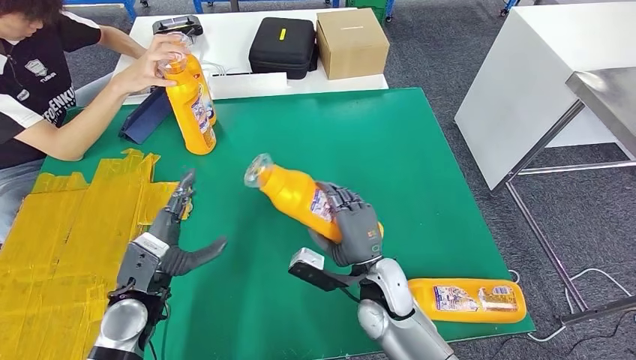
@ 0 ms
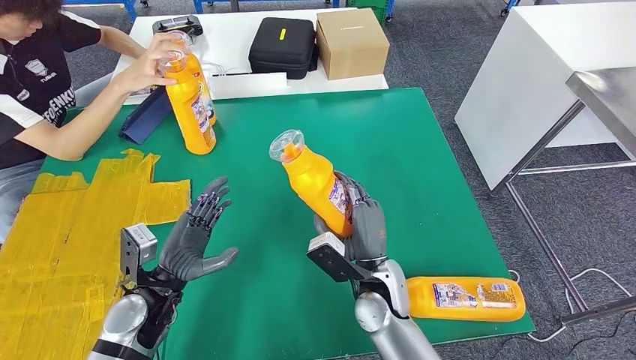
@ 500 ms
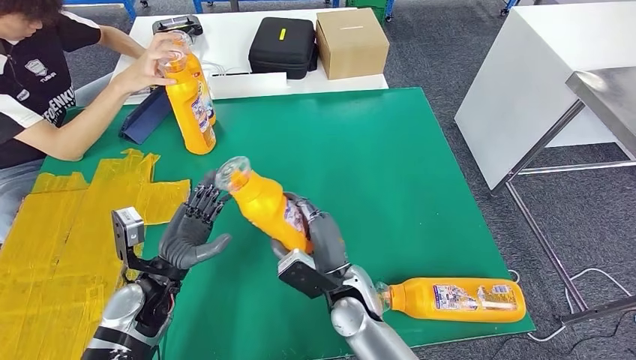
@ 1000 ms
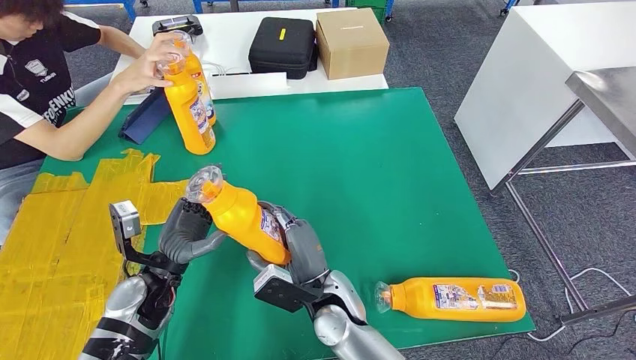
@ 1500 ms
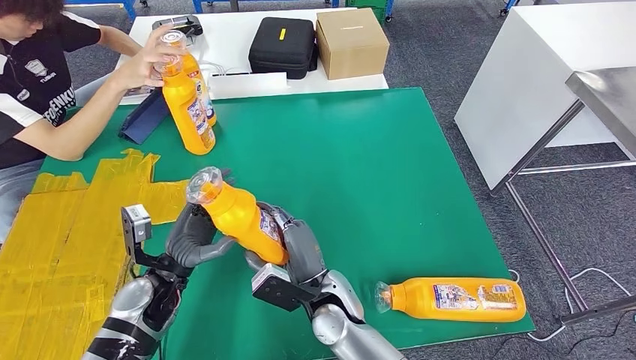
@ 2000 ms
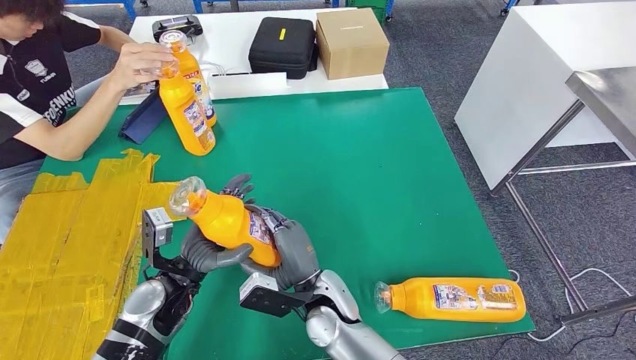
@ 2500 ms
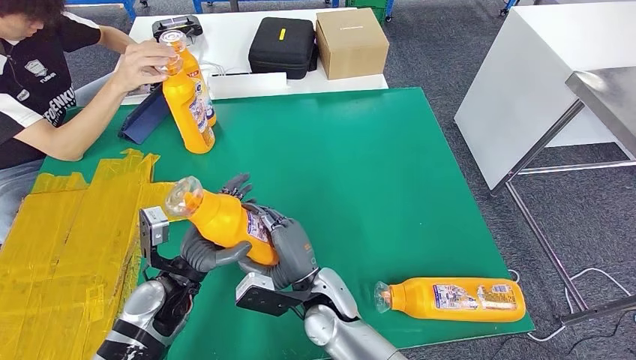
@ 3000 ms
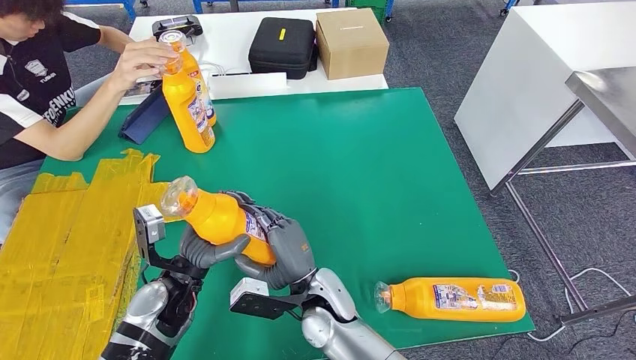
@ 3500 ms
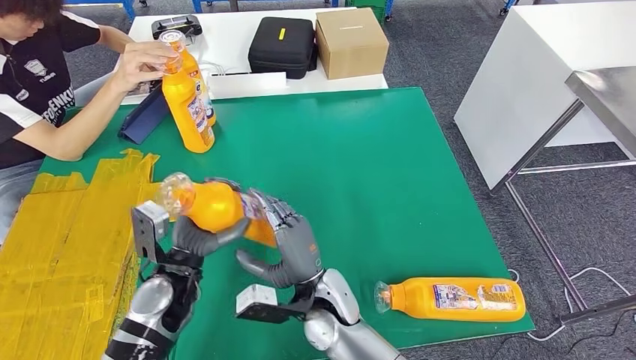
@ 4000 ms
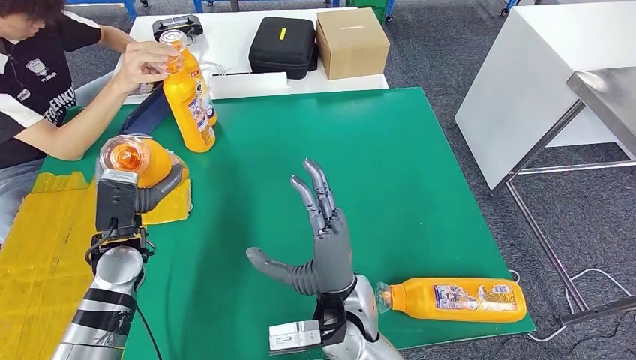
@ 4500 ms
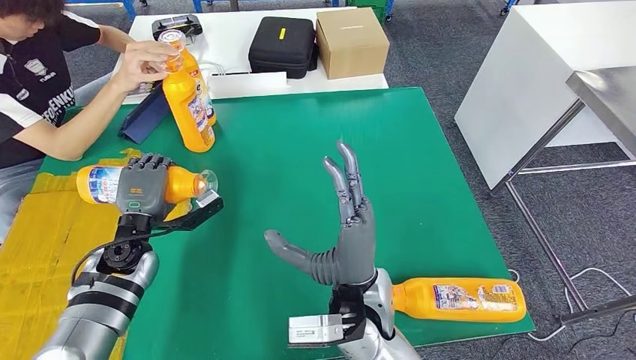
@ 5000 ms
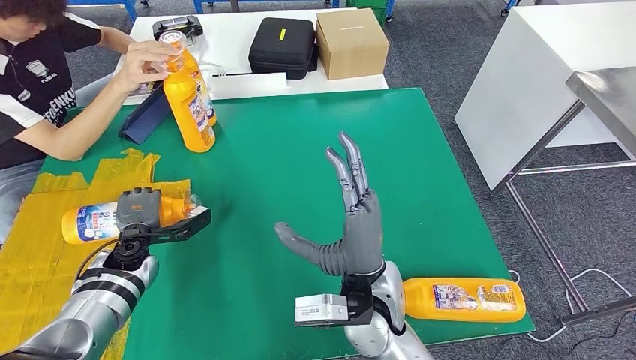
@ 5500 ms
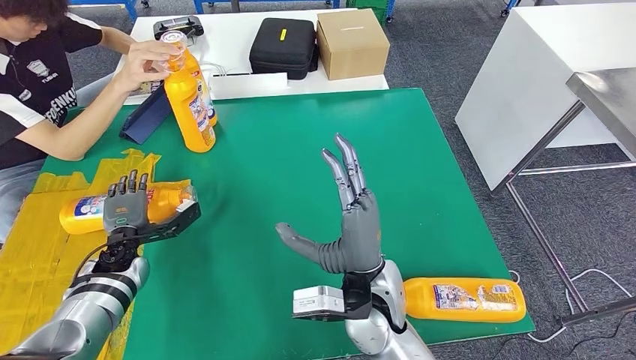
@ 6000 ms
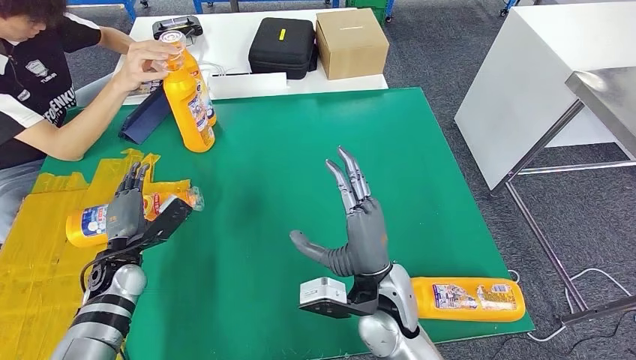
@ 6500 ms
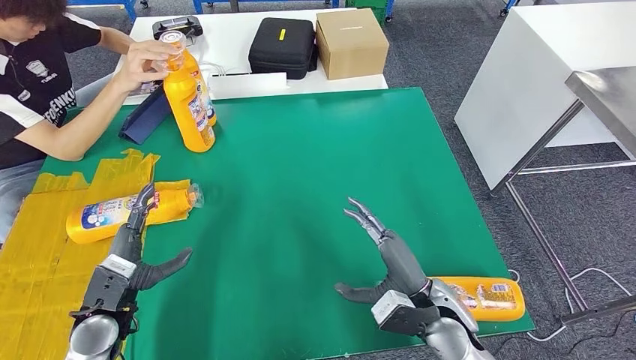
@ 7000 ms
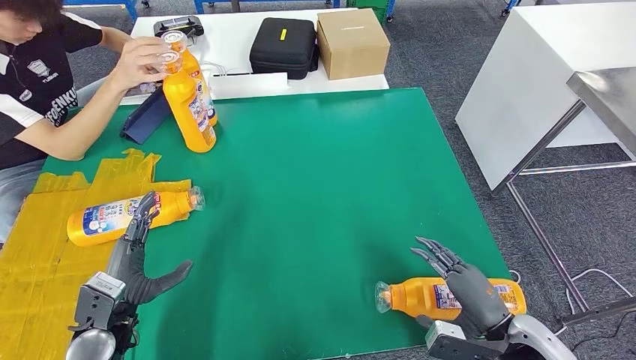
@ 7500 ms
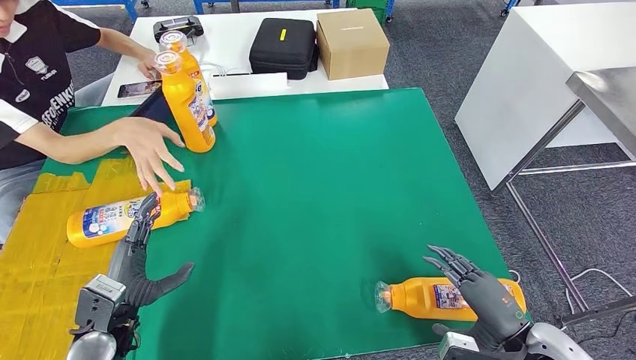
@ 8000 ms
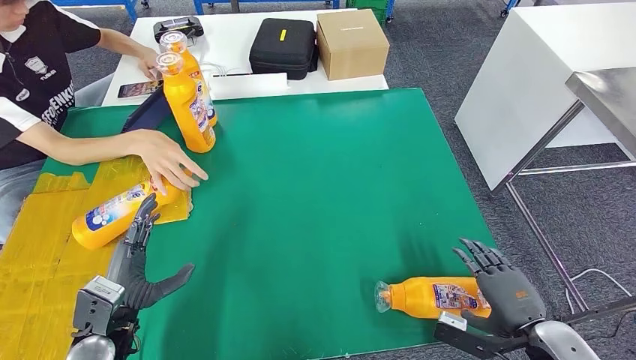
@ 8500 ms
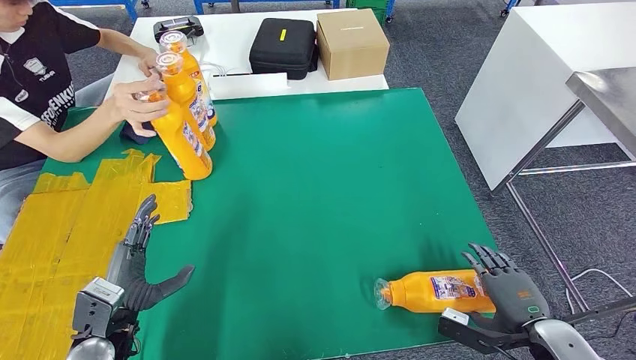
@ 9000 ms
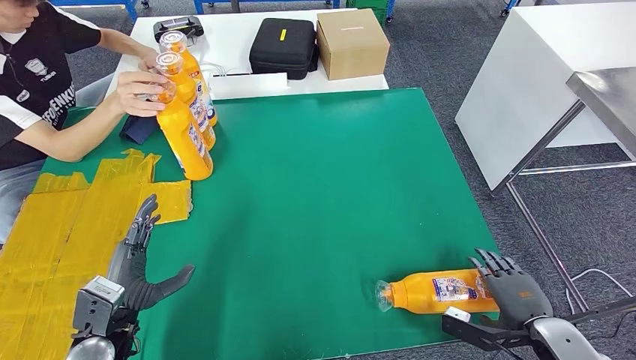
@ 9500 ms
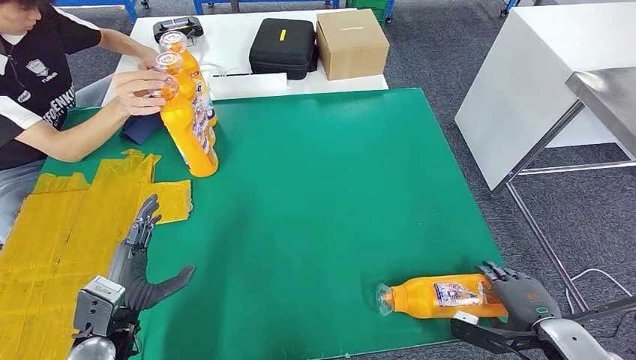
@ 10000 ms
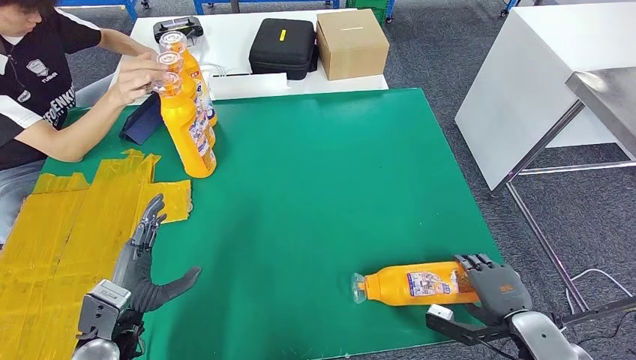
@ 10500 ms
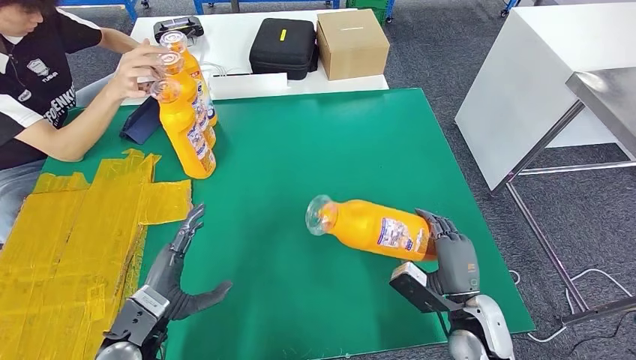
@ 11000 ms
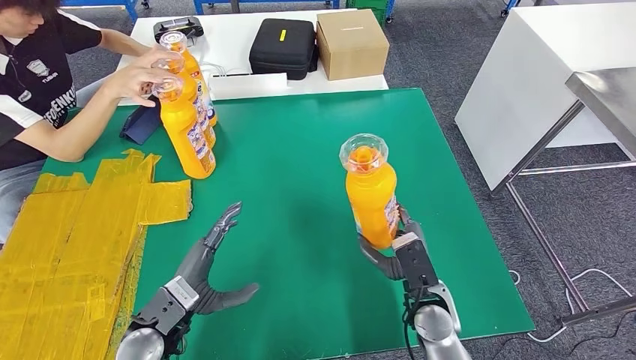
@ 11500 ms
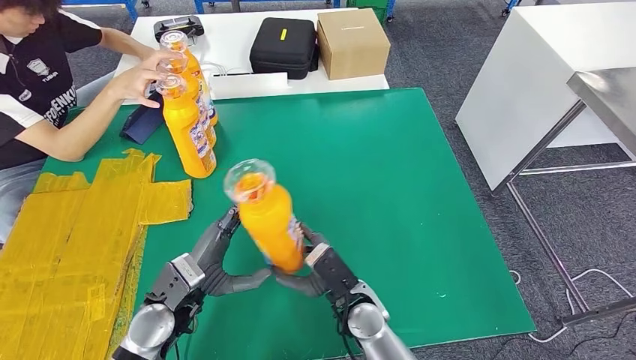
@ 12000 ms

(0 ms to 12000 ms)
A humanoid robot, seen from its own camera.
Step, 500 ms - 6500 ms: Flip the fast-moving consumer goods bottle to the front side.
0 ms - 2000 ms: The right hand is displaced to the left by roughly 10 cm.
2000 ms - 4000 ms: The hands move only a little.
8000 ms - 10000 ms: The right hand goes roughly 5 cm to the right.
10000 ms - 12000 ms: The left hand travels to the right by approximately 10 cm; the right hand shifts about 30 cm to the left.

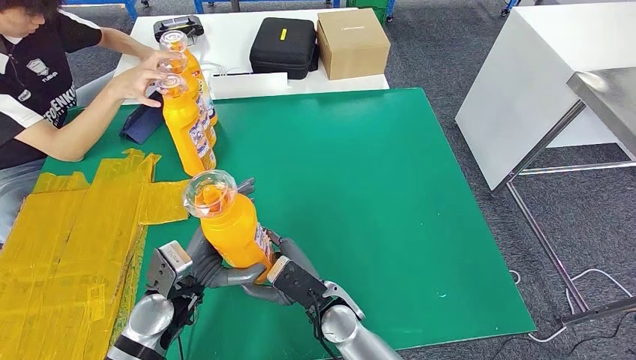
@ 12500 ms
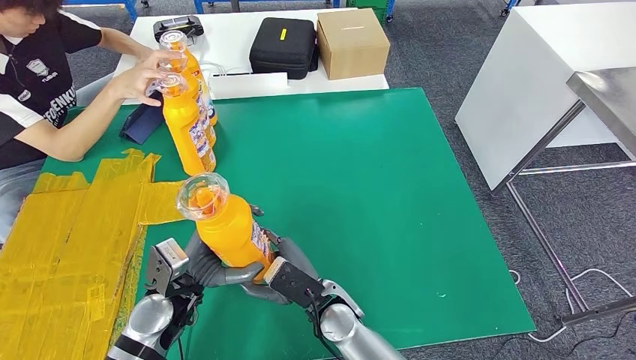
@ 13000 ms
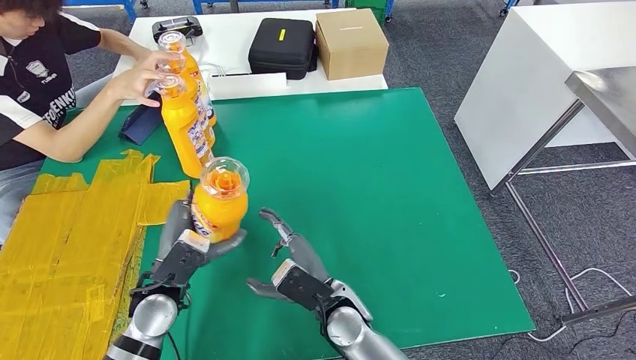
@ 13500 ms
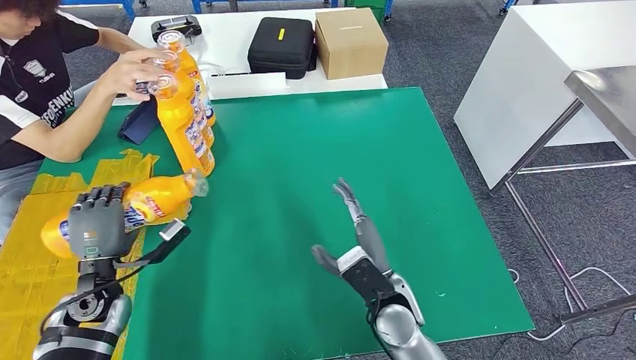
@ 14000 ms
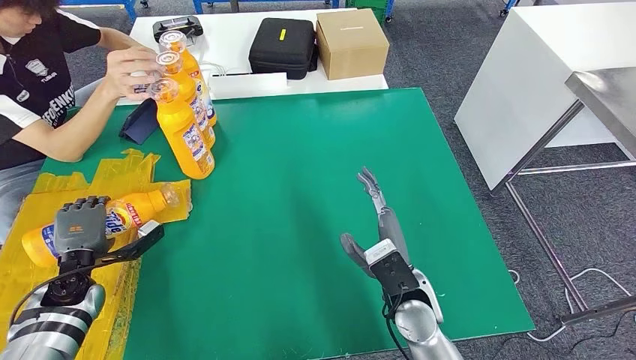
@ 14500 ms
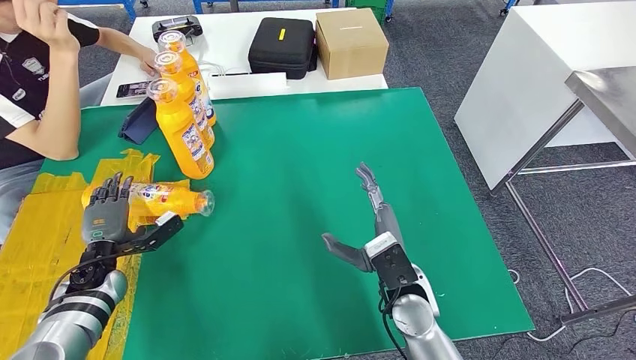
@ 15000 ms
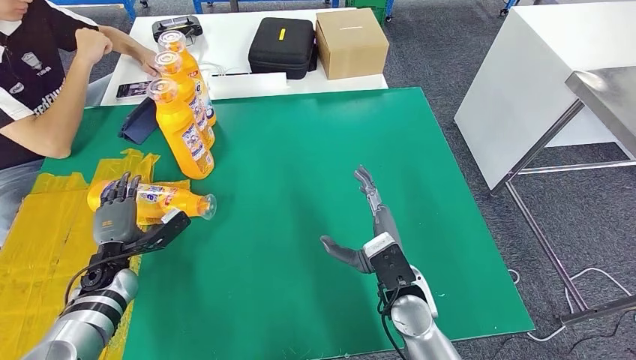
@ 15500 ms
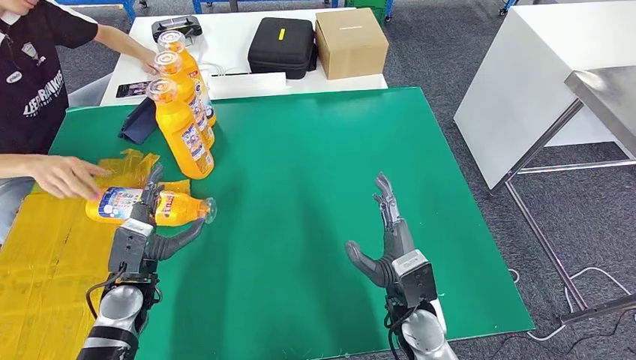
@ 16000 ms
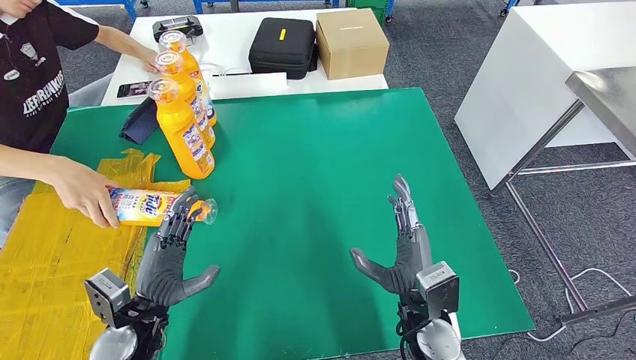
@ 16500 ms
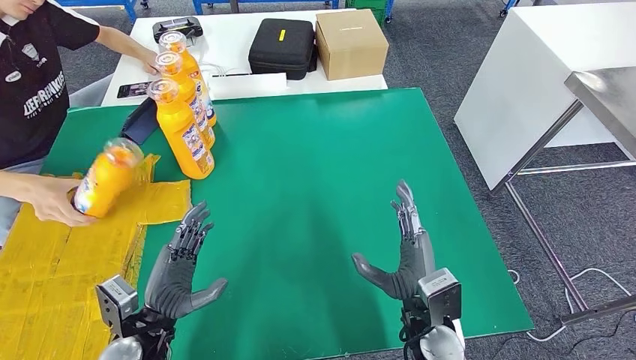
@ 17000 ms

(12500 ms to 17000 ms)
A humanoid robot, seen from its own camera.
Step, 13000 ms - 17000 ms: Flip the fast-moving consumer goods bottle to the front side.
